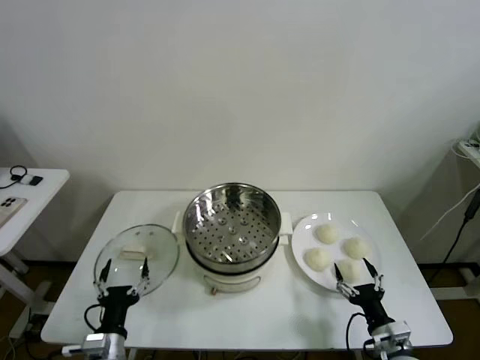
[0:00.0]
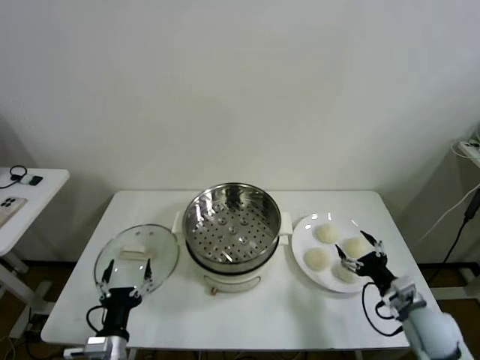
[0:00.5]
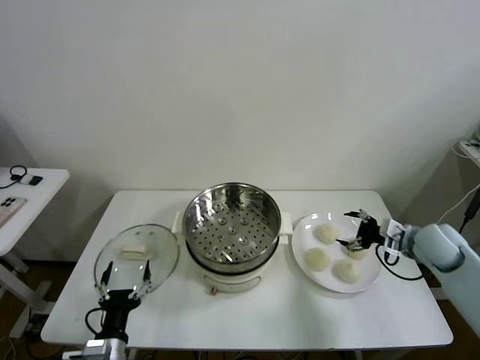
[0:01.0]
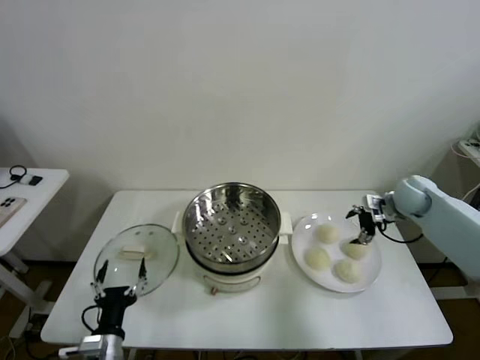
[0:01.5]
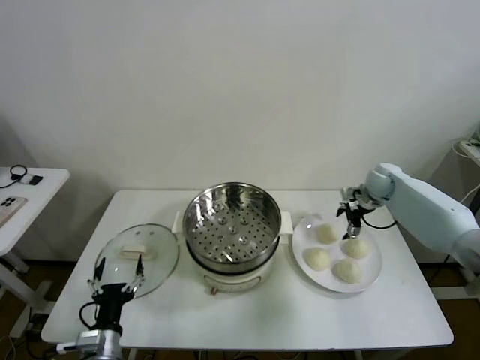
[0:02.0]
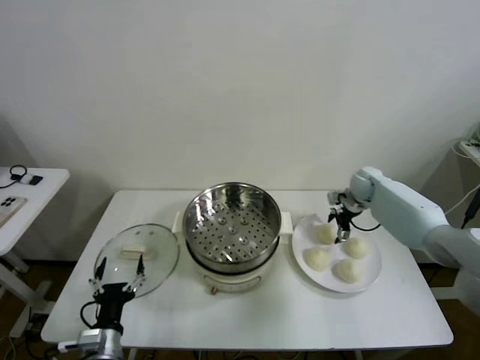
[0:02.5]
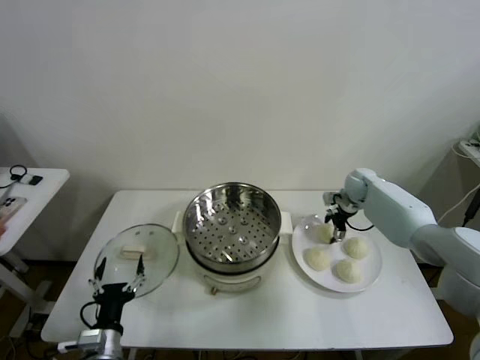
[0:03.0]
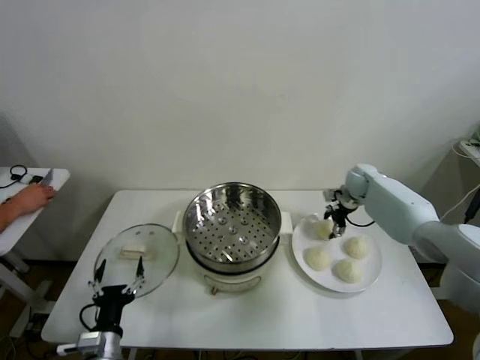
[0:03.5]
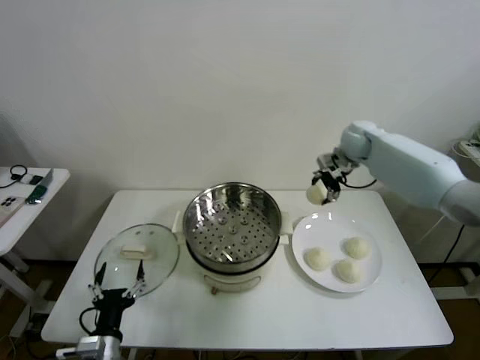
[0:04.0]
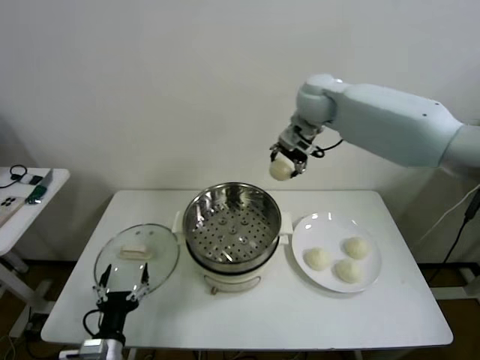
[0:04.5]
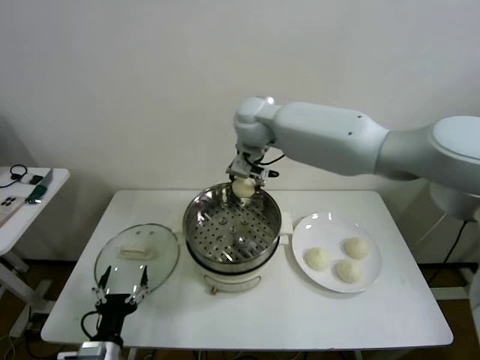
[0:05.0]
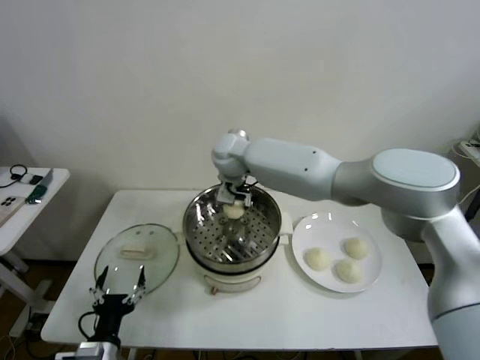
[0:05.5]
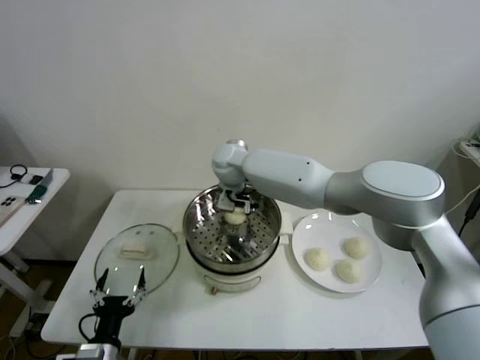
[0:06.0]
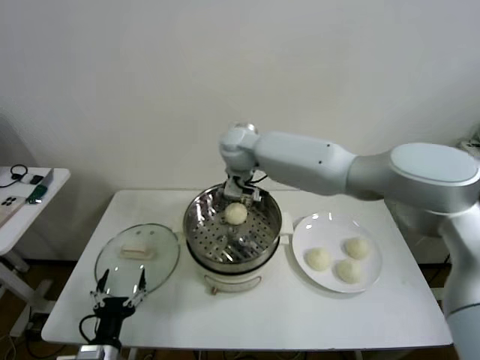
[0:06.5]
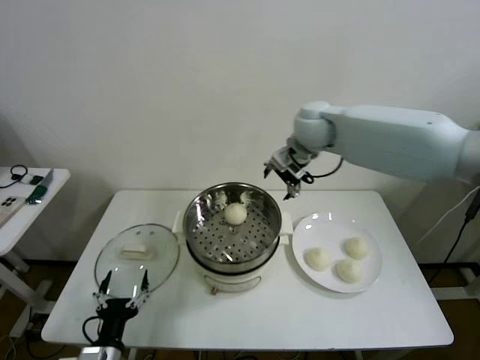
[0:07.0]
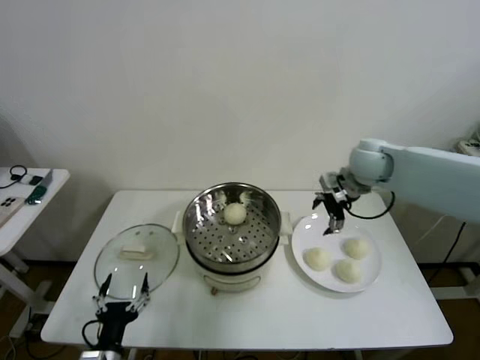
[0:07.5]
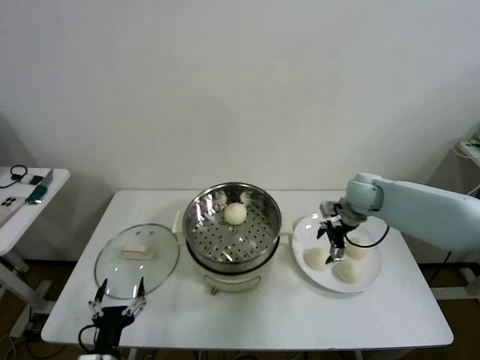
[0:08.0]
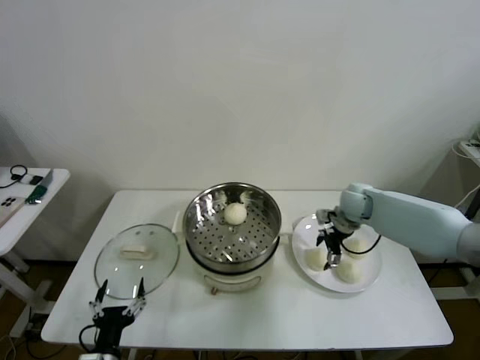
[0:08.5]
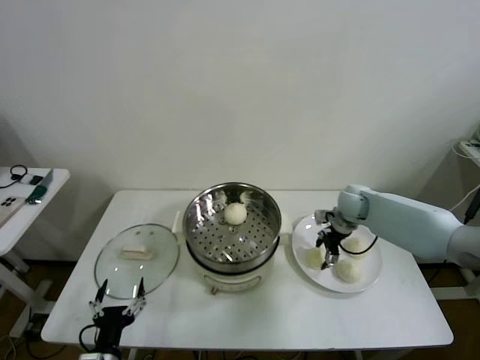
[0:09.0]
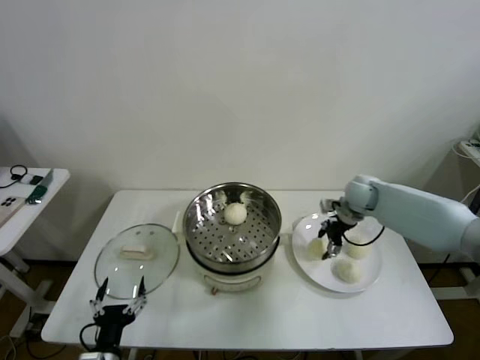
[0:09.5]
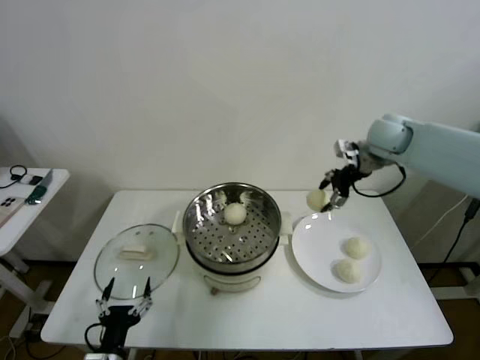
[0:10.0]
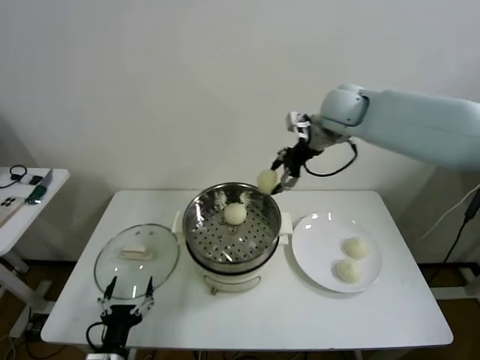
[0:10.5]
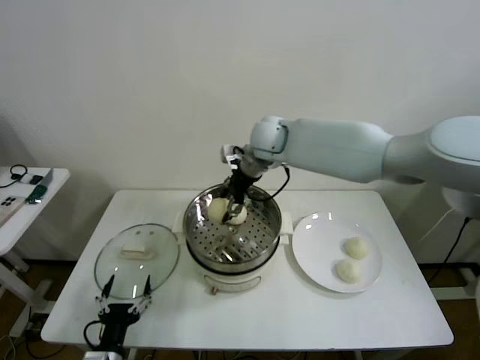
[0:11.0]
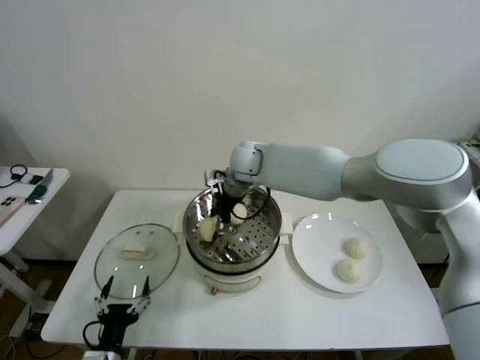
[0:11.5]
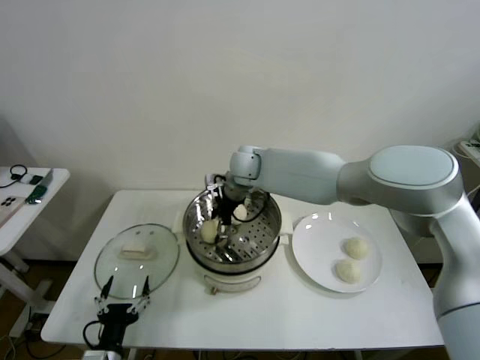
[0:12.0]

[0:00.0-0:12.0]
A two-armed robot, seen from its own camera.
Task of the whole recording: take steamed baozi put them in steamer then cover it.
Step, 0:00.0 to 0:03.0: Grasp the baozi in the plate with right gripper.
Step, 0:03.5 to 0:06.0: Place the baozi on the steamer with right gripper.
Step, 0:06.5 to 0:09.0: Grasp the baozi in the plate with right gripper.
0:02.0 to 0:04.0: The right gripper moves upward and to the left, some 20 cm.
0:04.0 to 0:06.0: The right gripper is displaced to the left by about 30 cm.
0:06.0 to 0:08.0: The right gripper shifts approximately 35 cm to the right.
0:08.0 to 0:10.0: The right gripper is displaced upward by some 15 cm.
0:10.0 to 0:12.0: The right gripper travels to the left by some 30 cm.

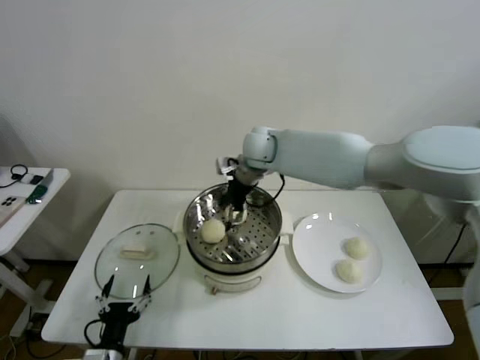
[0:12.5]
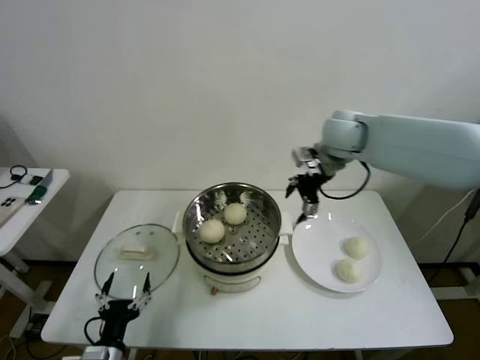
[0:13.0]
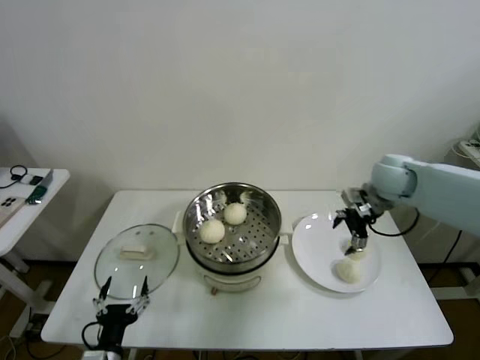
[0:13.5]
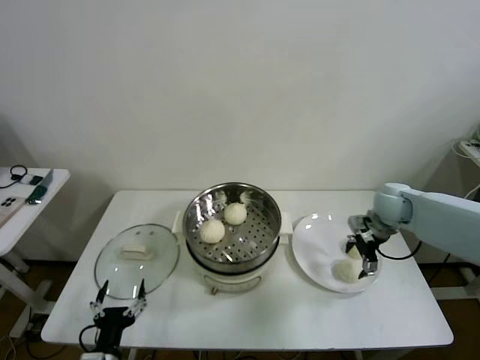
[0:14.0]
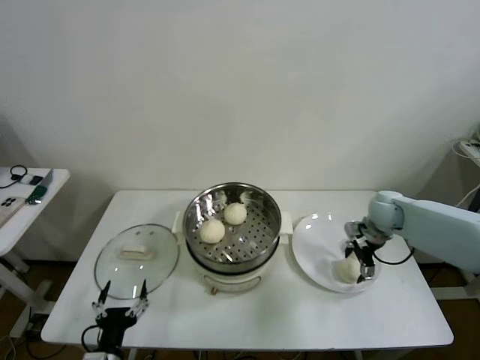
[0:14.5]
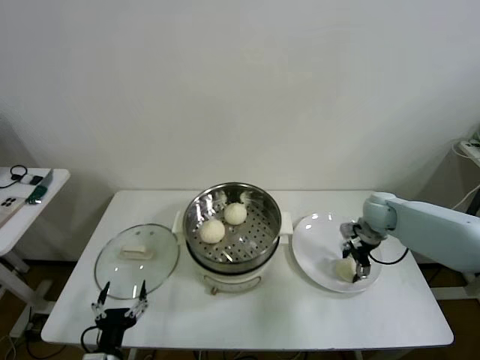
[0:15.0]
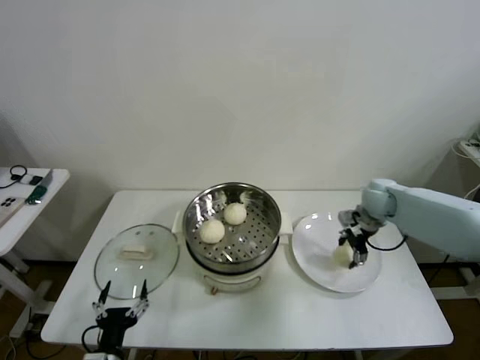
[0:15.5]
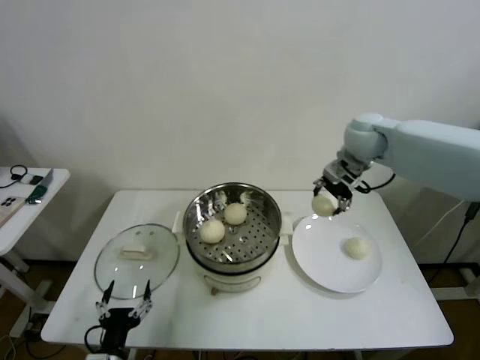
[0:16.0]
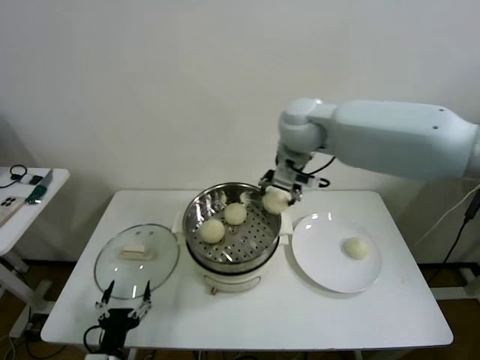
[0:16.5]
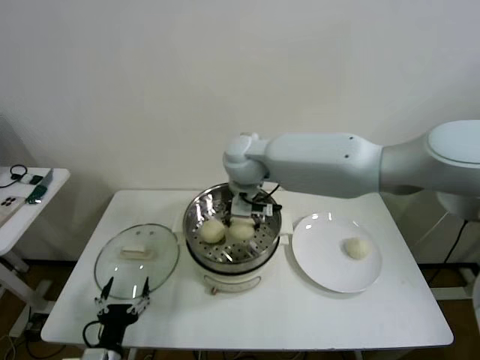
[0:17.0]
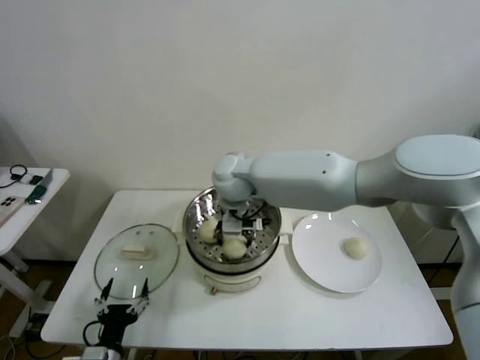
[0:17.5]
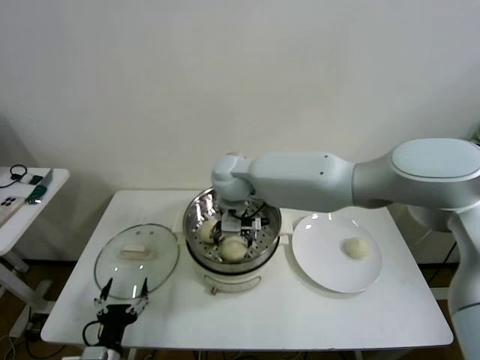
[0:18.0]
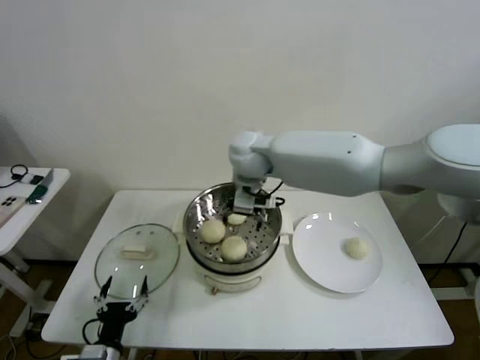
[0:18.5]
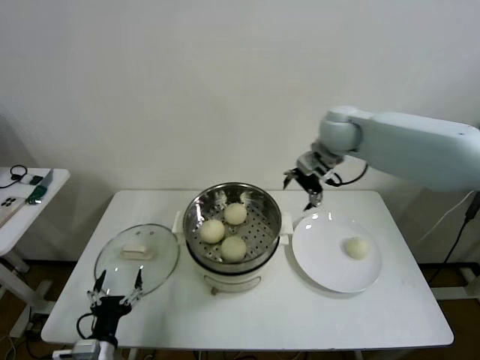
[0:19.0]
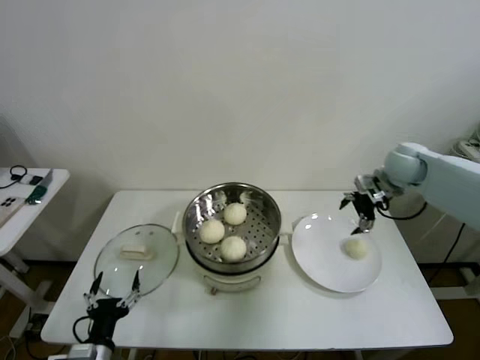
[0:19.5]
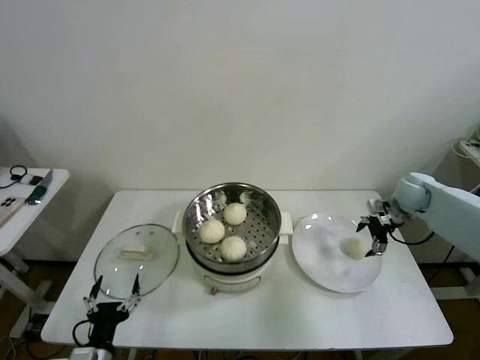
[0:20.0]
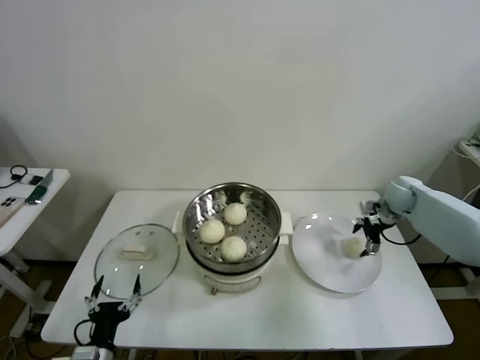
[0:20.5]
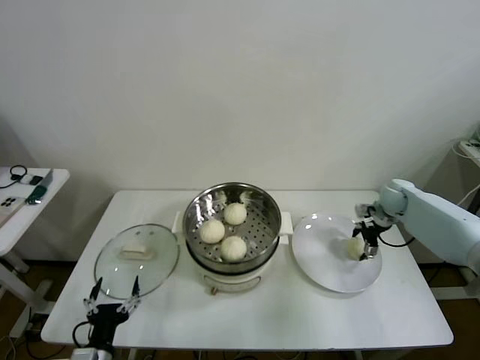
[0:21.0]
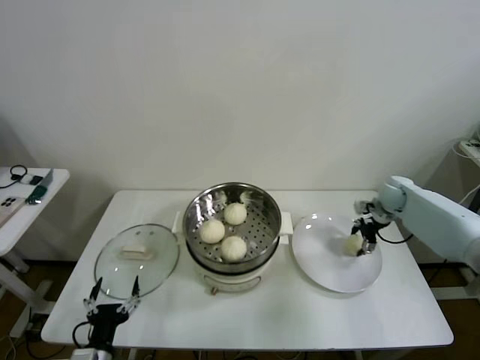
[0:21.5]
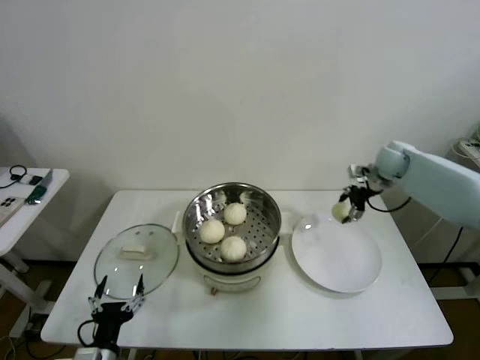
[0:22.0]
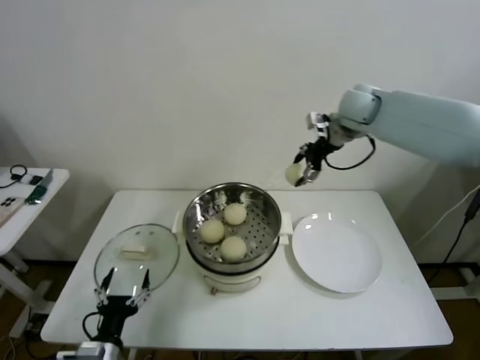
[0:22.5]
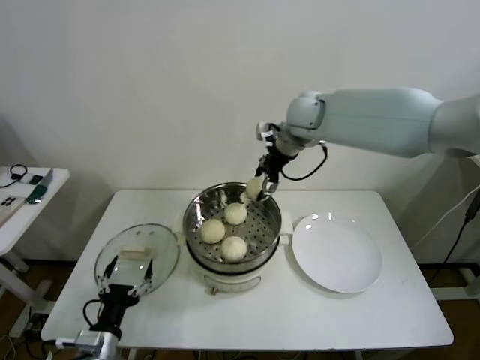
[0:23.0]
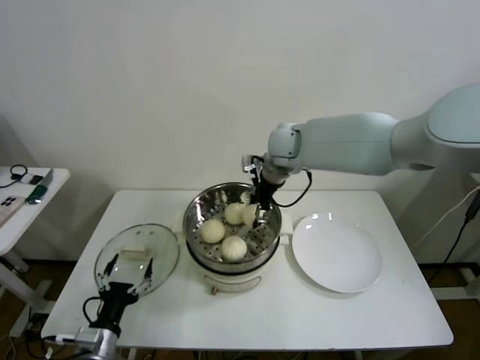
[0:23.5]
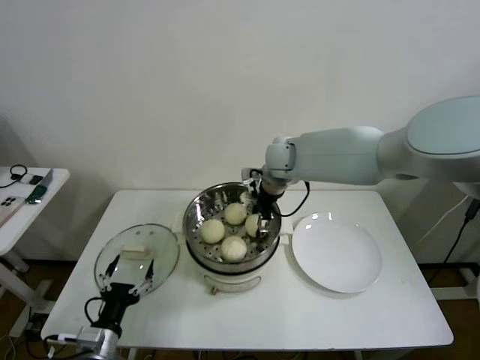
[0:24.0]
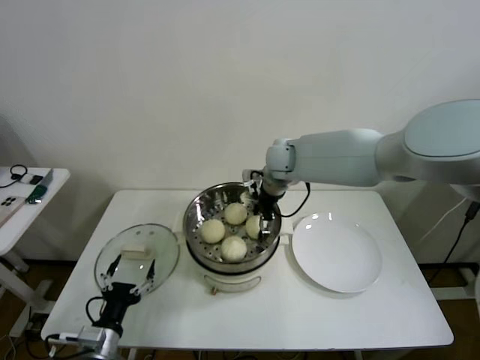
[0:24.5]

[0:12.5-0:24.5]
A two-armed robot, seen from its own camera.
Task of the whole recording: take steamed baozi put them in steamer then cover it.
Step, 0:12.5 to 0:15.0: Grasp the baozi in the plate with right gripper.
Step, 0:15.5 to 0:18.0: Place the baozi on the steamer with right gripper.
Step, 0:18.5 to 0:21.0: Grasp the baozi in the plate with right gripper.
0:12.5 to 0:14.5: The right gripper goes approximately 35 cm to the right and downward.
0:14.5 to 0:16.5: The right gripper goes approximately 35 cm to the left and upward.
0:16.5 to 0:18.5: The right gripper shifts approximately 10 cm to the left and downward.
0:18.5 to 0:20.5: The right gripper shifts some 40 cm to the right and downward.
0:20.5 to 0:22.5: The right gripper is displaced upward and to the left by about 30 cm.
0:22.5 to 0:24.5: The right gripper is displaced to the left and downward by approximately 20 cm.

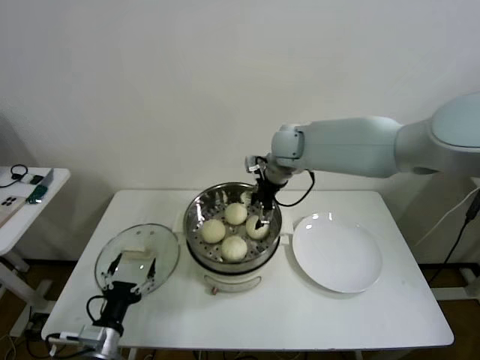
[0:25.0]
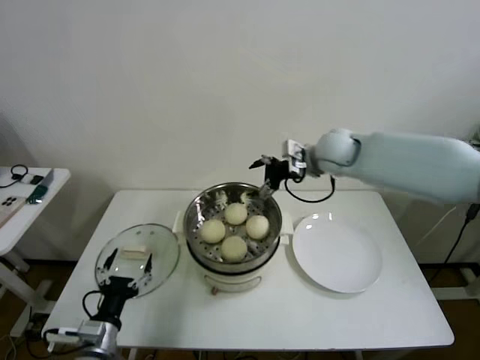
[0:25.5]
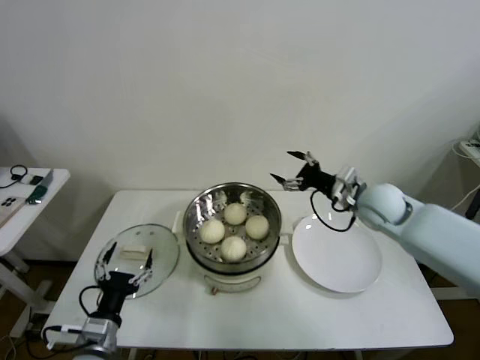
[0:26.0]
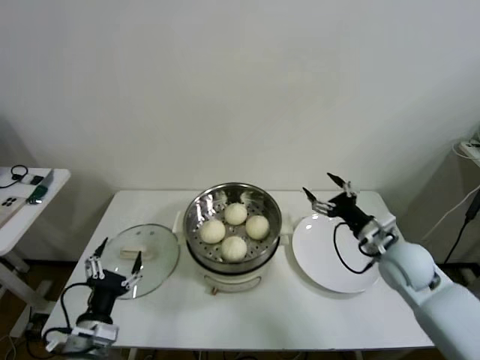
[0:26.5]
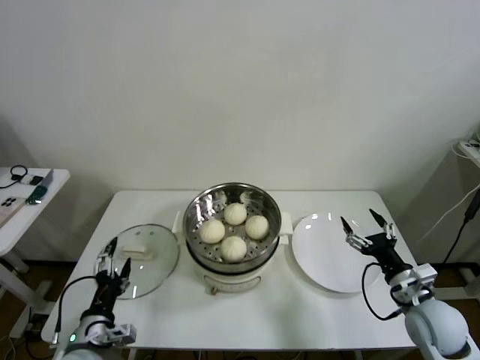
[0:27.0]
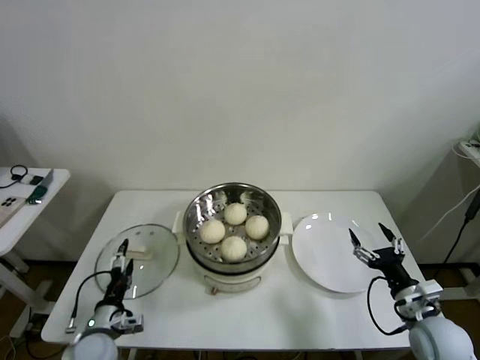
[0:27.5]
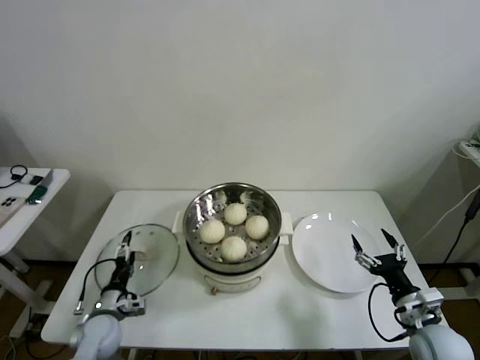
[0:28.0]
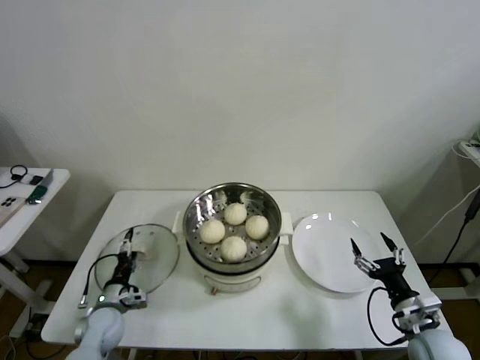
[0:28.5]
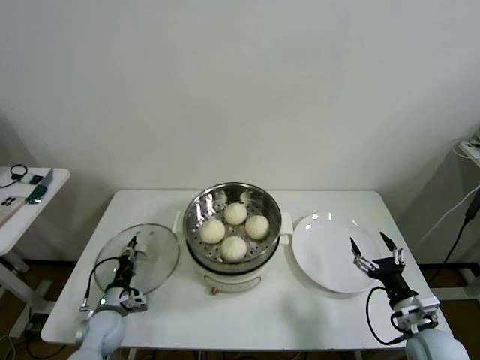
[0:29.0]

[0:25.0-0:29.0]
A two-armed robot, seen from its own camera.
Task of the whole recording: take steamed baozi put them in steamer then cover it.
0:25.0 to 0:27.0: The right gripper is displaced backward, to the right and downward by approximately 50 cm.
0:27.0 to 0:29.0: The right gripper changes place by roughly 5 cm, while the left gripper travels downward and forward by roughly 15 cm, and closes up.
